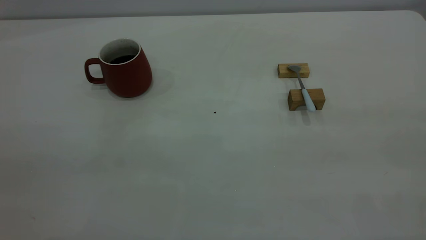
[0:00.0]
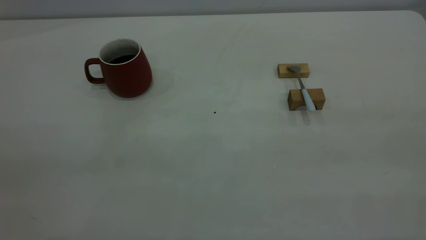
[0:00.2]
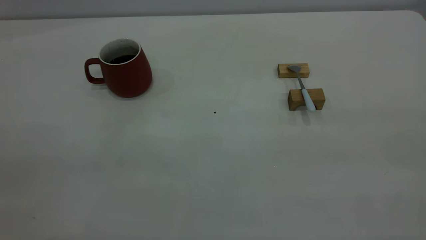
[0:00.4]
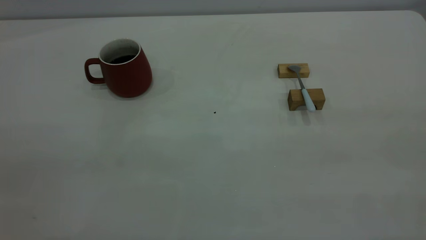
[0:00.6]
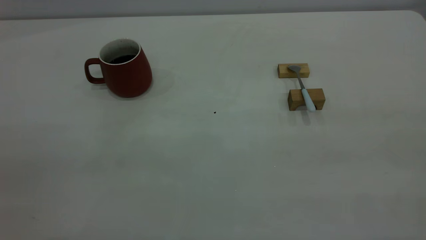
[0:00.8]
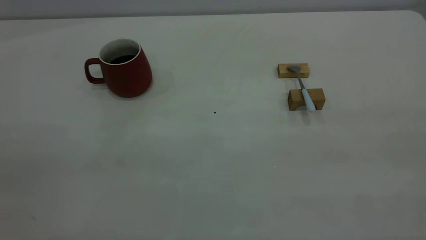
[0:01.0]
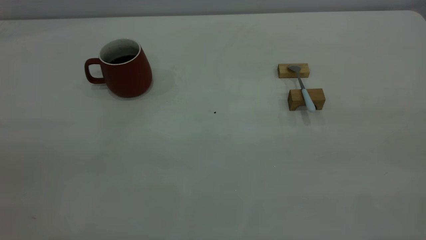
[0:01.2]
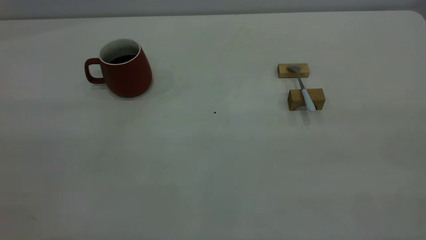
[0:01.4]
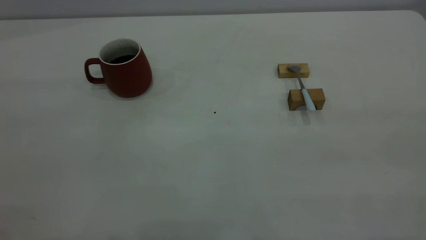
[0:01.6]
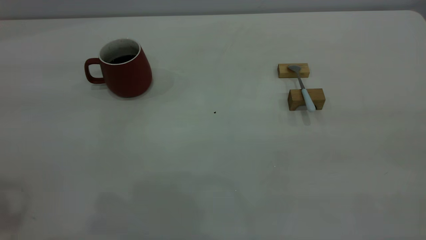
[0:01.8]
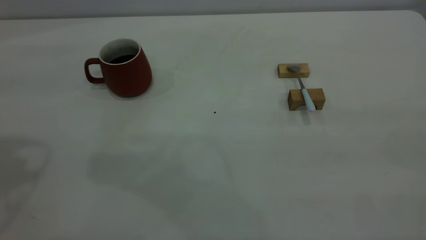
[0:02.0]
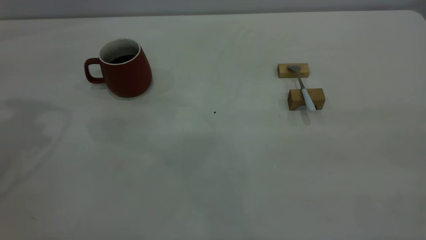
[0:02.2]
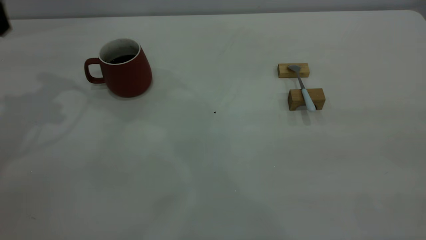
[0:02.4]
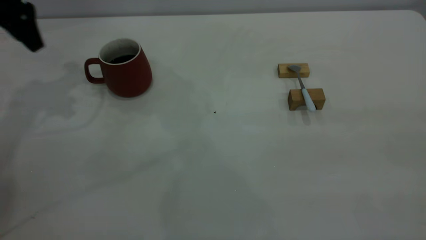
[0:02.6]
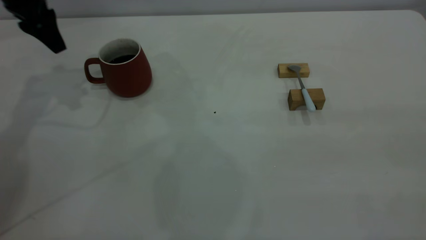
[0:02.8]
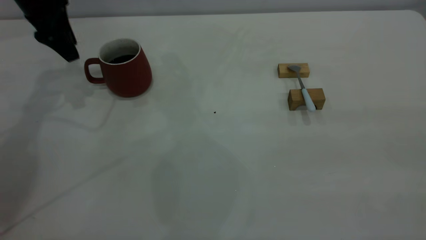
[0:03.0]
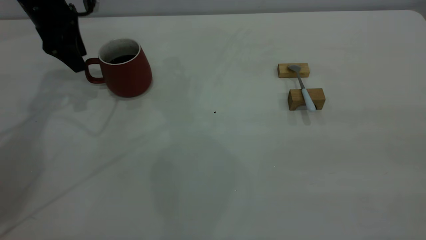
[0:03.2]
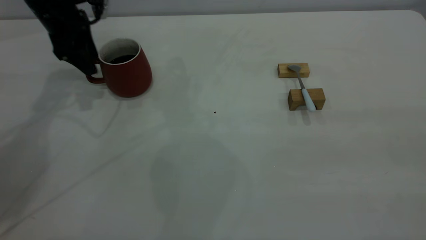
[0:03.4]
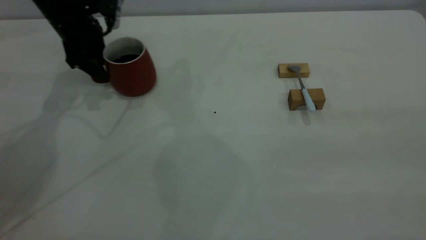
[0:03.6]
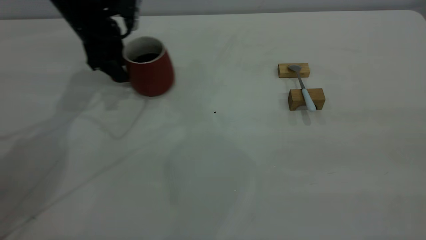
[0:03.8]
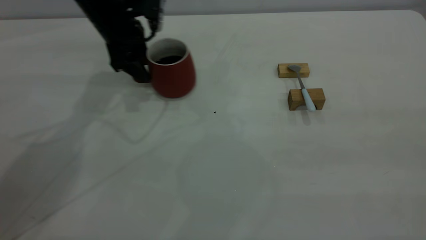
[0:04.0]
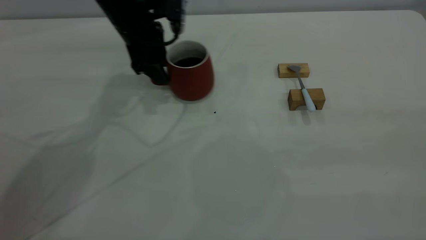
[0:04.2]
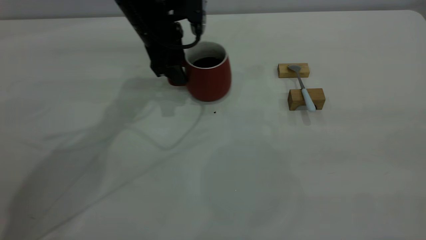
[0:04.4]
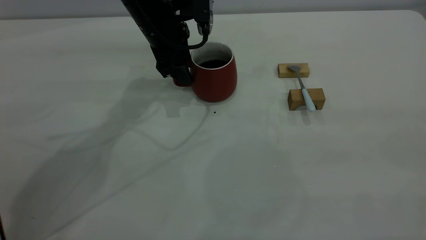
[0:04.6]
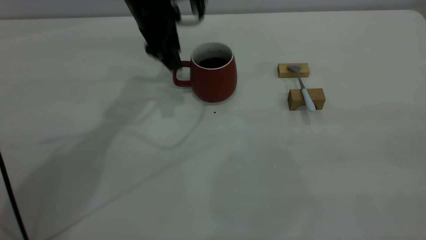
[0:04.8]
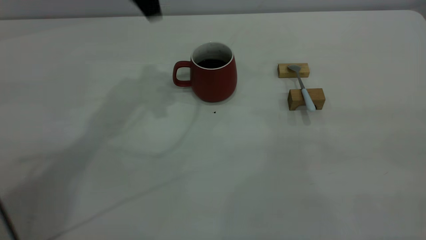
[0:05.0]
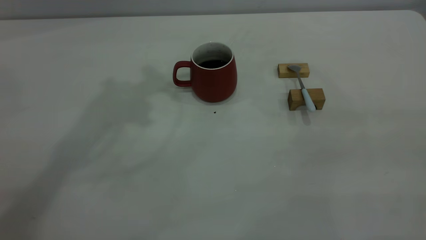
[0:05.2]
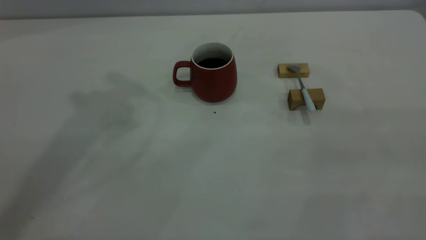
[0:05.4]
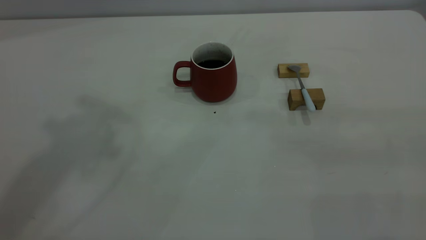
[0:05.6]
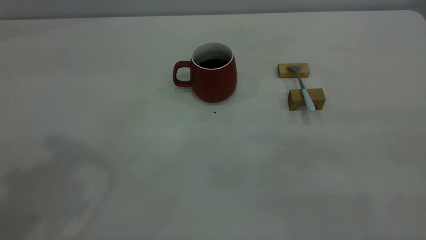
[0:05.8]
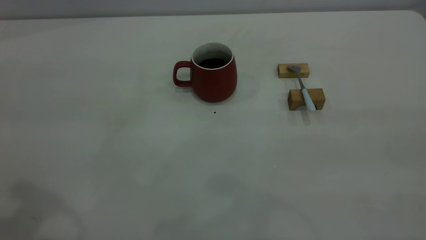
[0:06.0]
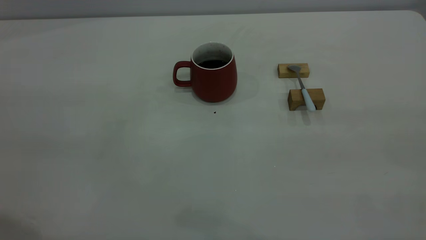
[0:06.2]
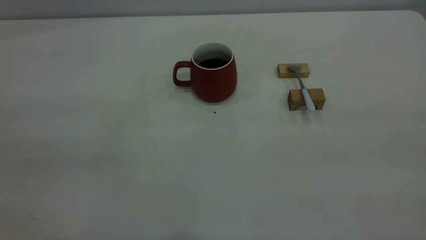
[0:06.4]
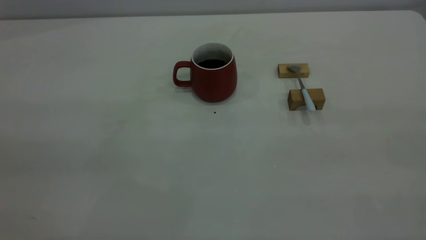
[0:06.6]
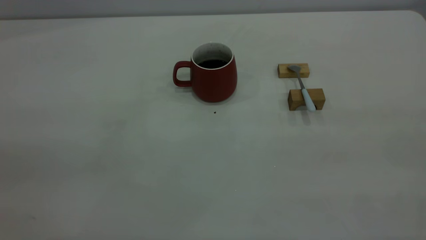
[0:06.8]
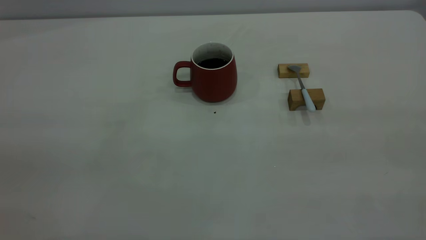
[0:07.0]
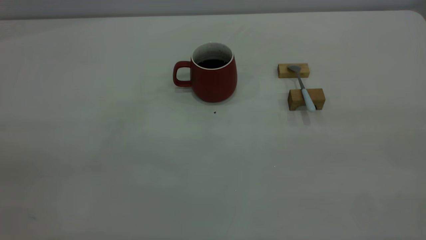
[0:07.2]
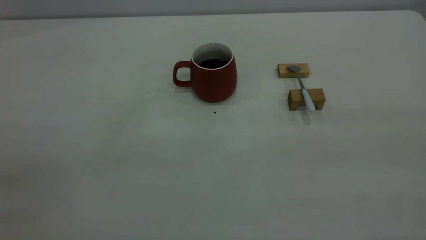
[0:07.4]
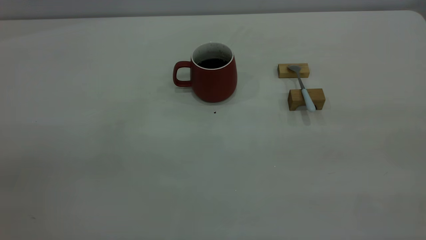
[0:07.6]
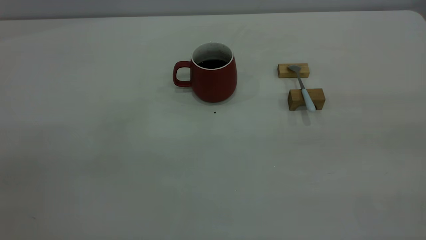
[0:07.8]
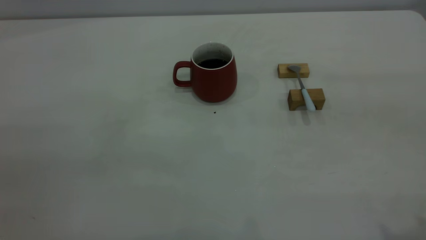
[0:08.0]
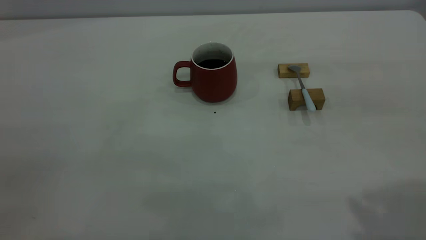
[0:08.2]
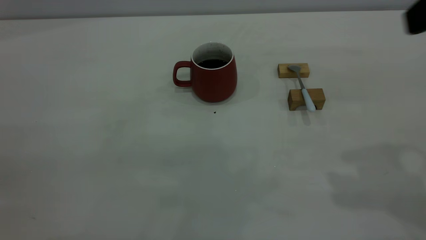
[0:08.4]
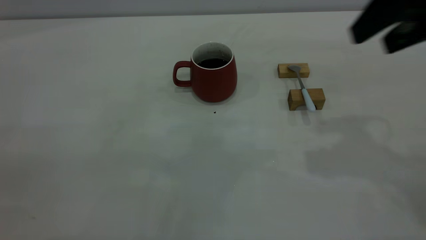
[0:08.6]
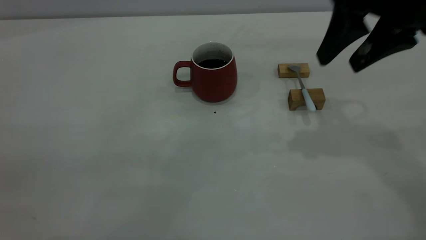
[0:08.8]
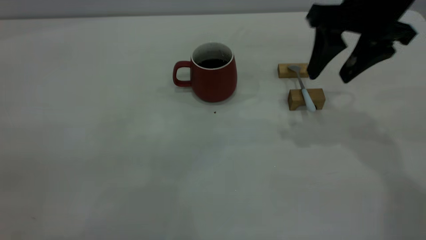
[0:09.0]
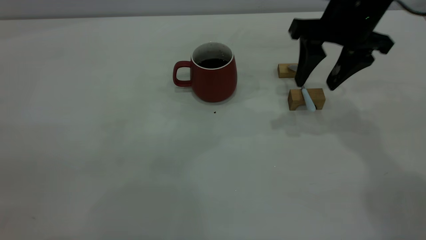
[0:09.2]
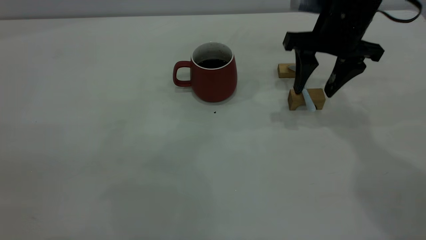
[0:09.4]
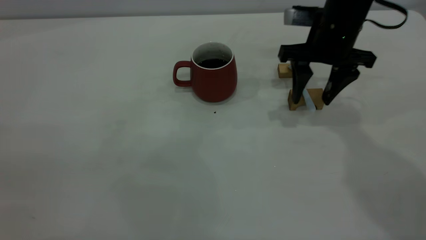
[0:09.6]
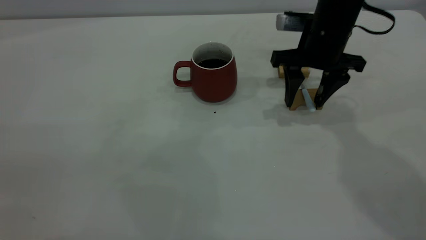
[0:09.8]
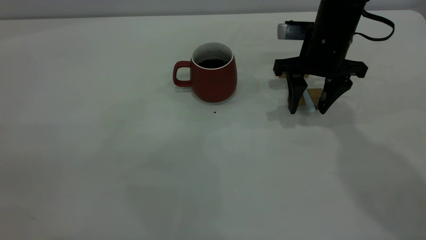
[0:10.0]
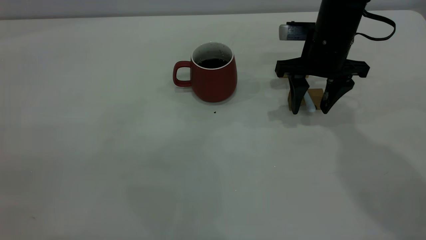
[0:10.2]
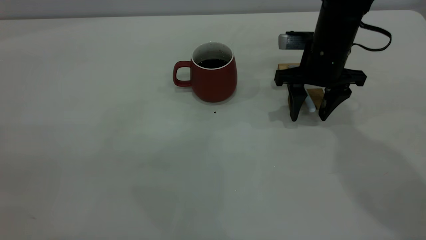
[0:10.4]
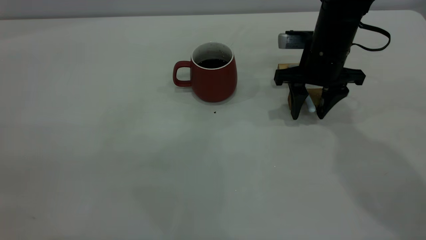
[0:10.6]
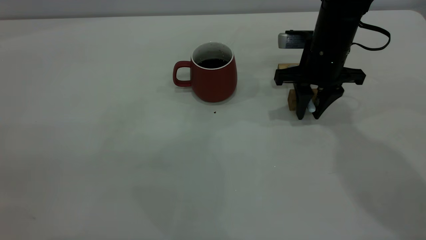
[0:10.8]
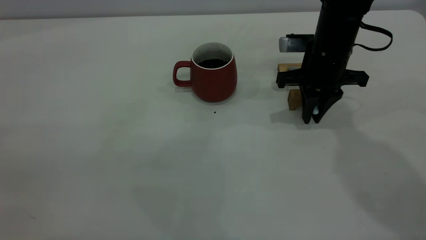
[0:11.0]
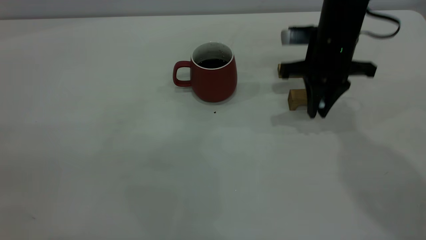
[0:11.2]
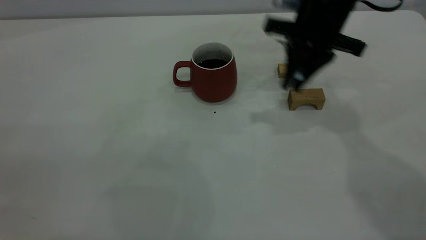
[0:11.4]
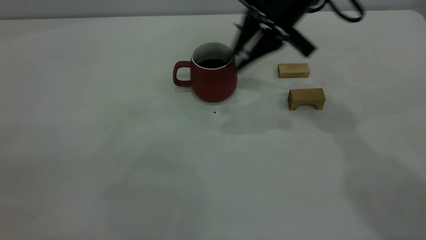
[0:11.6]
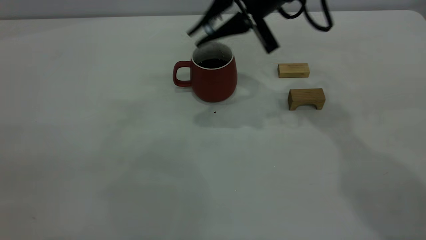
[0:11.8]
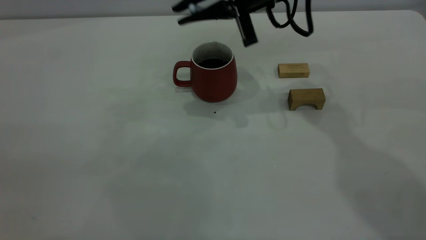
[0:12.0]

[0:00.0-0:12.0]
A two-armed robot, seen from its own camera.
Step, 0:00.0 to 0:04.8: Move the cup with coffee to the center of view.
Step, 0:05.0 to 0:11.2: Pick up the spoon.
0:01.6 to 0:03.0: The left gripper travels forward and downward by some 40 cm.
0:03.0 to 0:04.4: The left gripper goes about 20 cm to the right.
0:04.4 to 0:06.0: The left gripper is displaced backward, upward and to the left by some 40 cm.
0:07.6 to 0:09.0: The right gripper heads forward and downward, covering roughly 40 cm.
0:09.0 to 0:10.4: The right gripper travels downward and forward by about 15 cm.
0:10.4 to 0:12.0: The right gripper moves upward and to the left, about 15 cm, and closes.

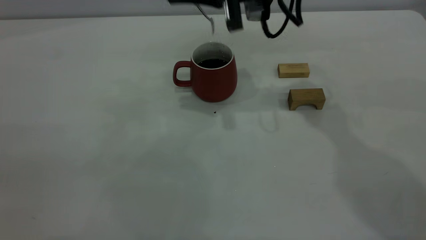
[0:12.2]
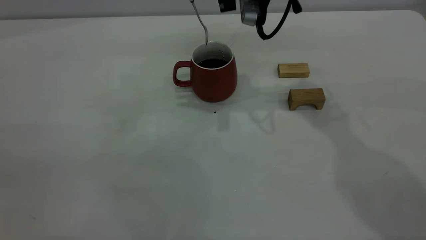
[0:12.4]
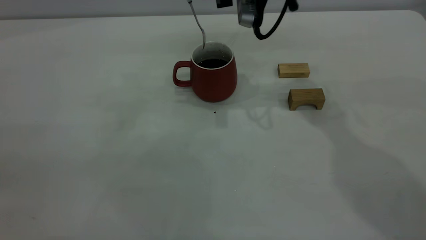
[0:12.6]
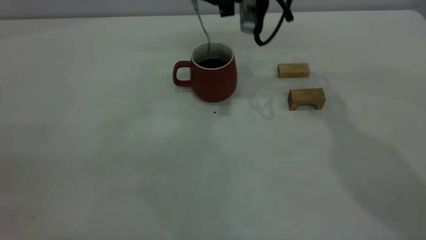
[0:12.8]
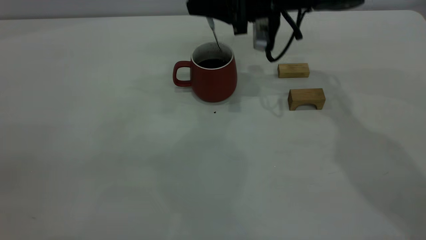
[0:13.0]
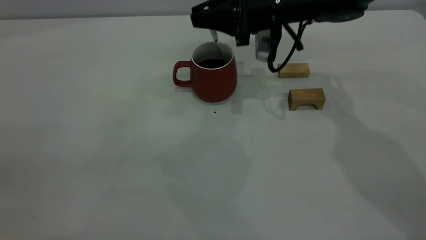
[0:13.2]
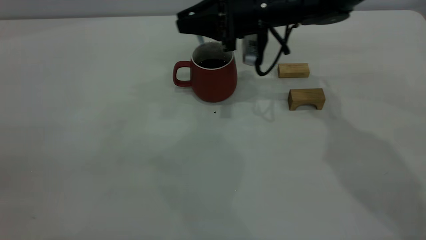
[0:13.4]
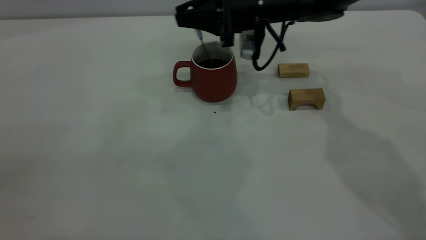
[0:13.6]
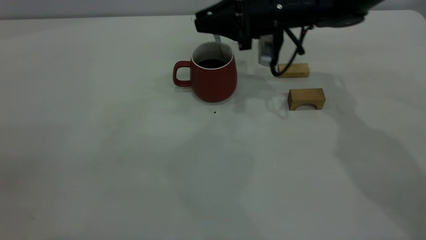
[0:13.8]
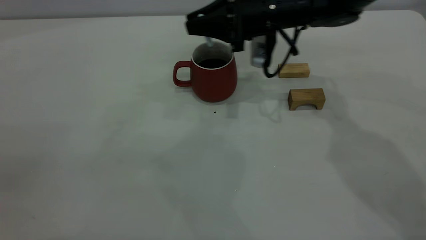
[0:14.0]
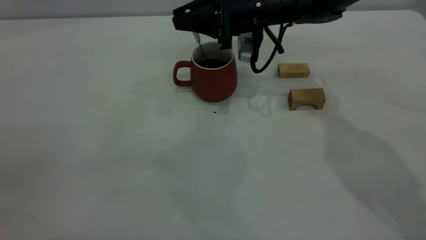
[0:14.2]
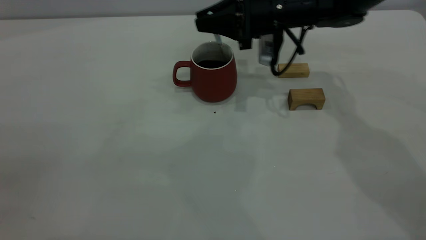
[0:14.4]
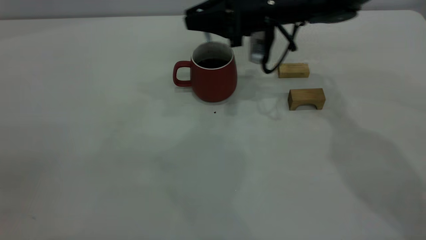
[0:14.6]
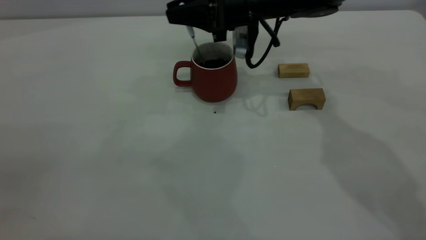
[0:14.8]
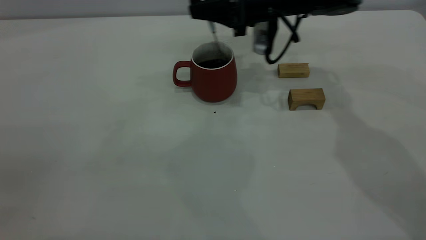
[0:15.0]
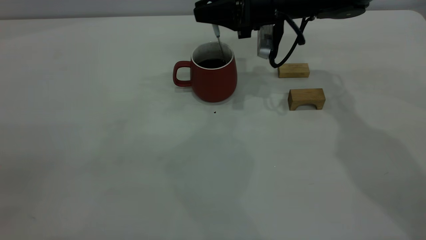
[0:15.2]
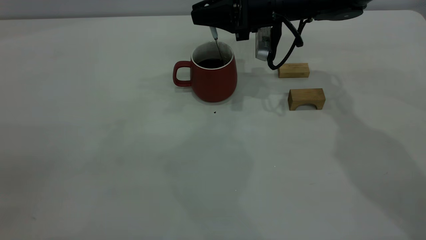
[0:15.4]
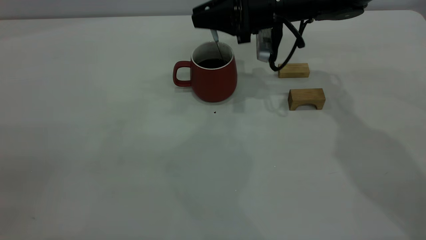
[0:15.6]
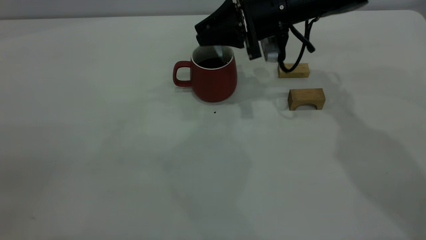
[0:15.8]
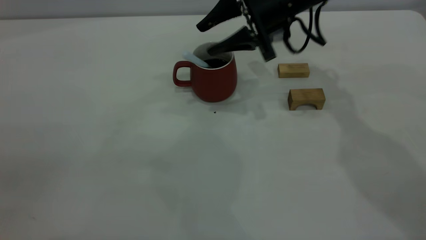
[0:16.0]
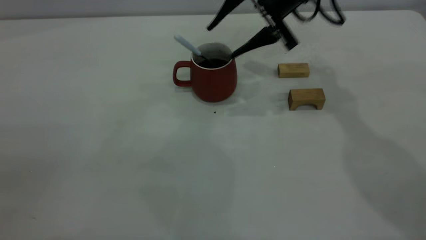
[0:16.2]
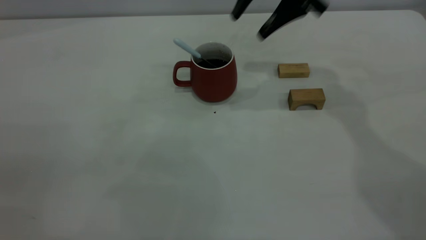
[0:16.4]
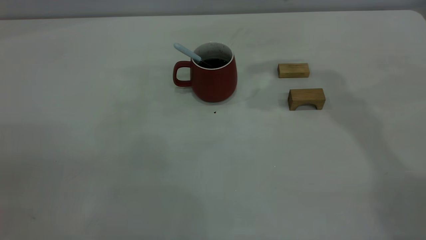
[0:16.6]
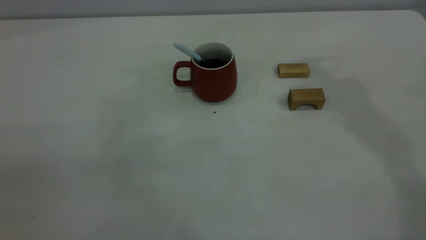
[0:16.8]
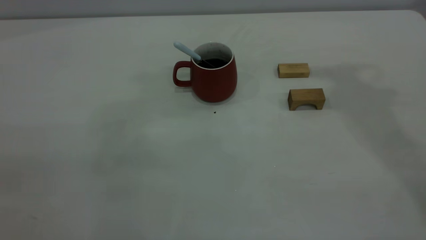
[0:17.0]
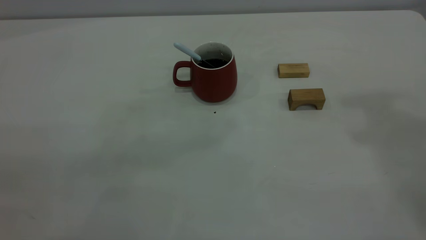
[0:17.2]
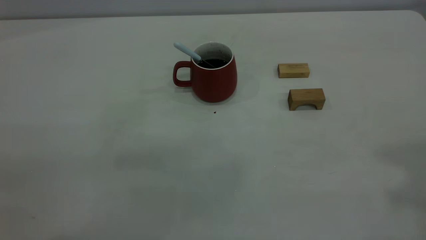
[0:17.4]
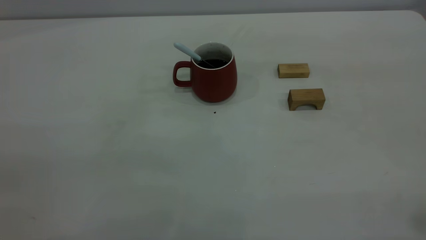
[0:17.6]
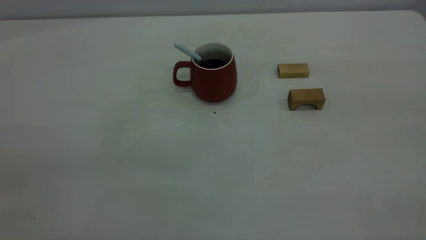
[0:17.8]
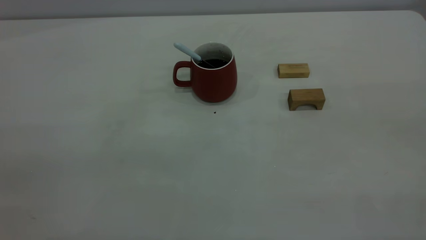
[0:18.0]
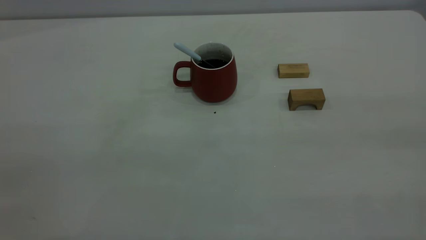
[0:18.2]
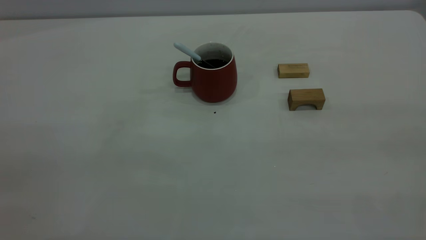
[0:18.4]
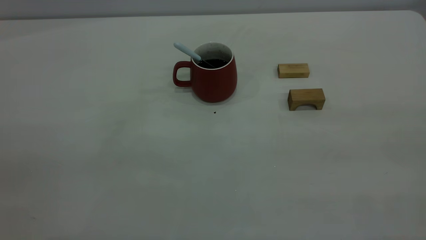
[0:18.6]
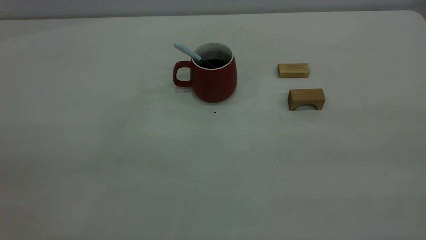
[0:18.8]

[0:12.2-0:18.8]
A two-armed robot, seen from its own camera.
Step, 0:12.2 to 0:15.8: Stir the coffee in the cup.
0:12.2 to 0:13.8: The right gripper is displaced downward by approximately 10 cm.
0:13.8 to 0:15.4: The grippers make only small movements.
0:15.4 to 0:17.2: The right gripper moves upward, backward and to the right, about 40 cm, and opens its fingers.
